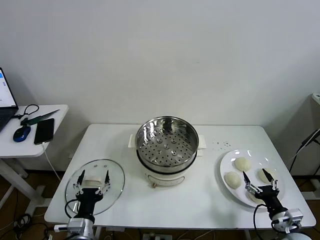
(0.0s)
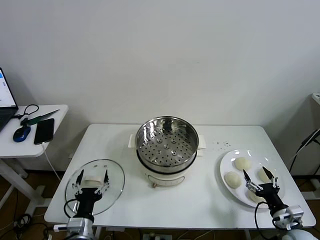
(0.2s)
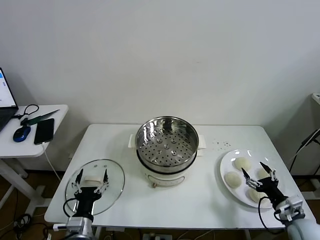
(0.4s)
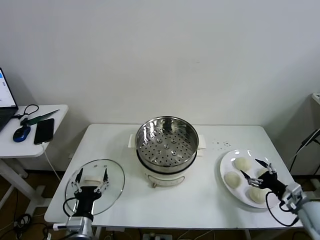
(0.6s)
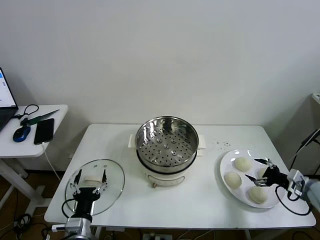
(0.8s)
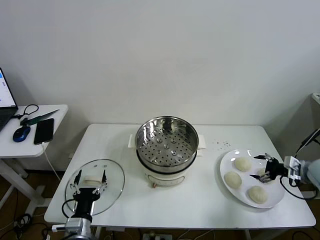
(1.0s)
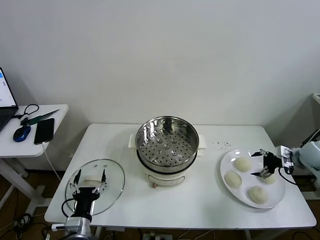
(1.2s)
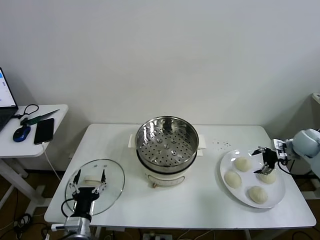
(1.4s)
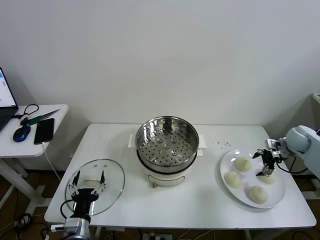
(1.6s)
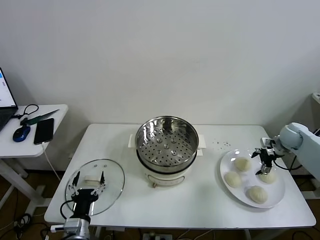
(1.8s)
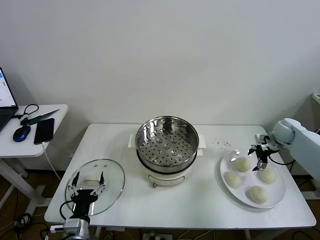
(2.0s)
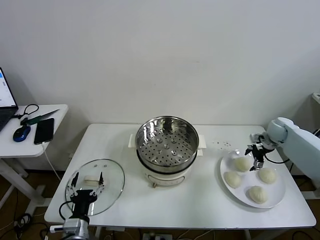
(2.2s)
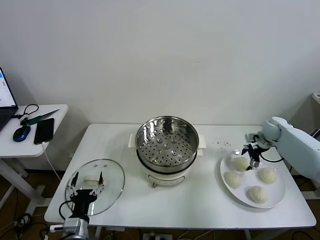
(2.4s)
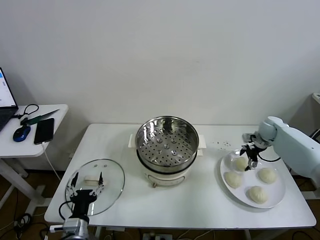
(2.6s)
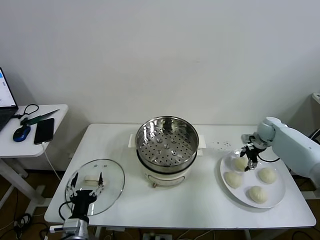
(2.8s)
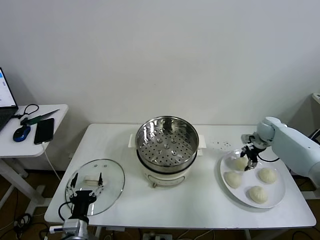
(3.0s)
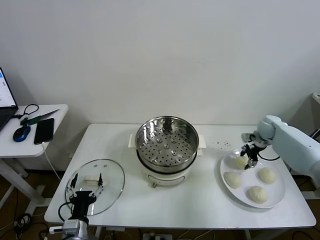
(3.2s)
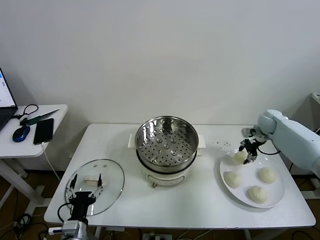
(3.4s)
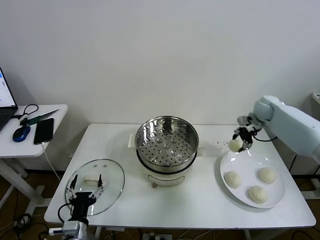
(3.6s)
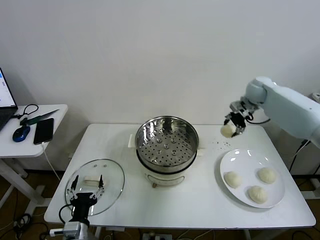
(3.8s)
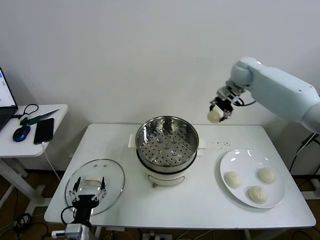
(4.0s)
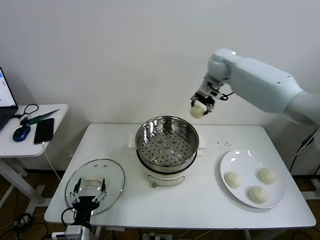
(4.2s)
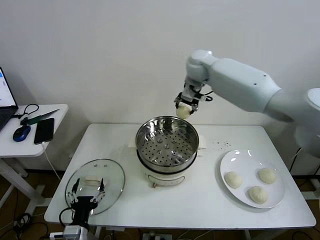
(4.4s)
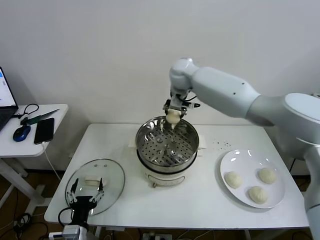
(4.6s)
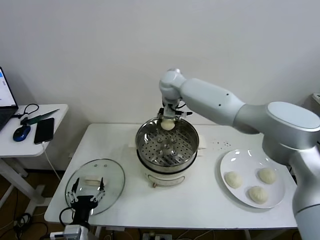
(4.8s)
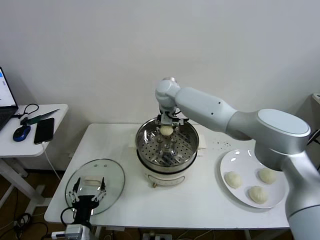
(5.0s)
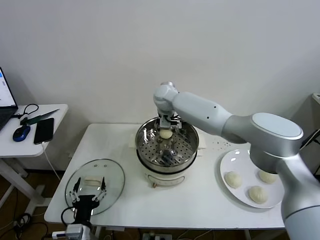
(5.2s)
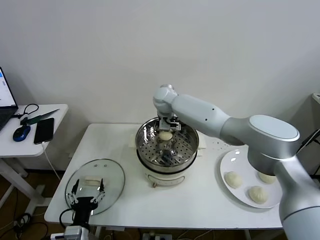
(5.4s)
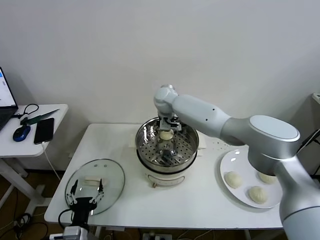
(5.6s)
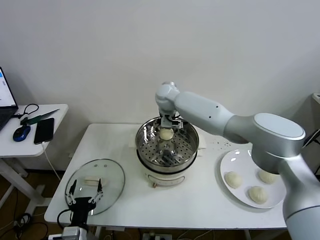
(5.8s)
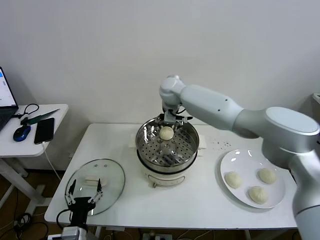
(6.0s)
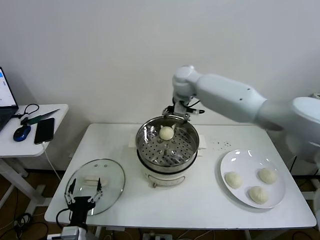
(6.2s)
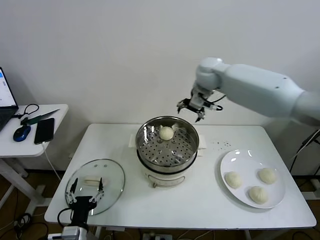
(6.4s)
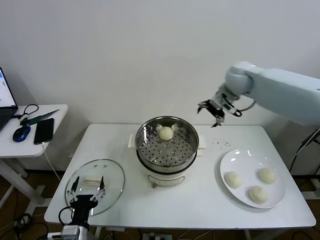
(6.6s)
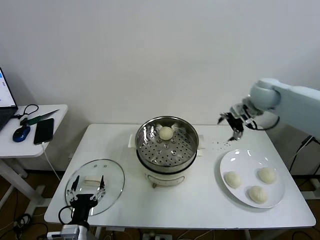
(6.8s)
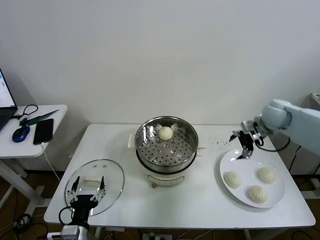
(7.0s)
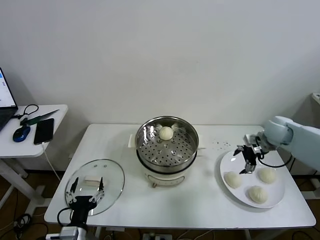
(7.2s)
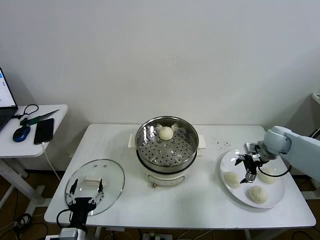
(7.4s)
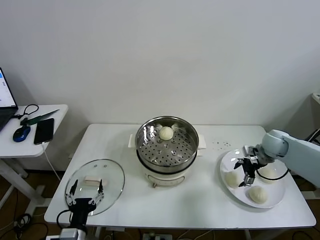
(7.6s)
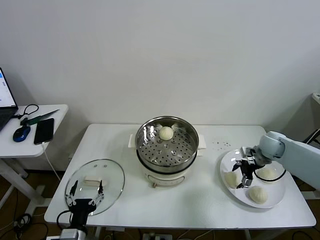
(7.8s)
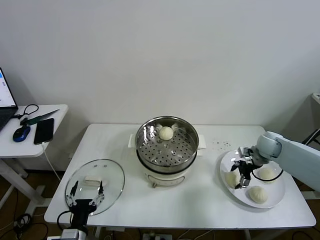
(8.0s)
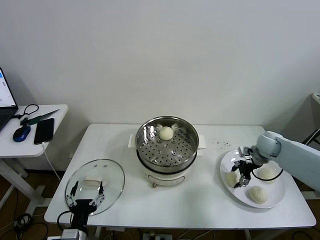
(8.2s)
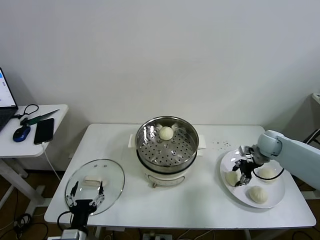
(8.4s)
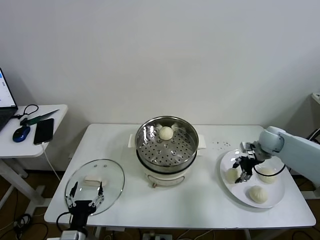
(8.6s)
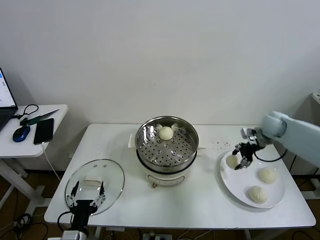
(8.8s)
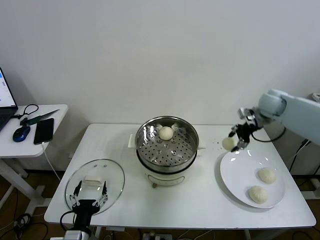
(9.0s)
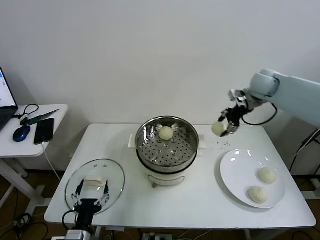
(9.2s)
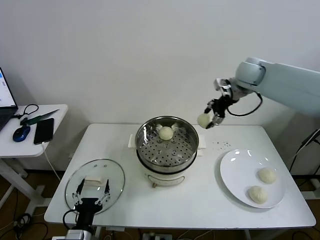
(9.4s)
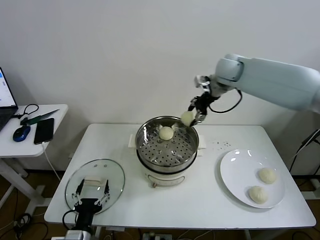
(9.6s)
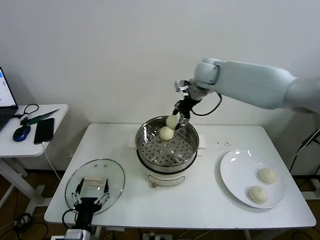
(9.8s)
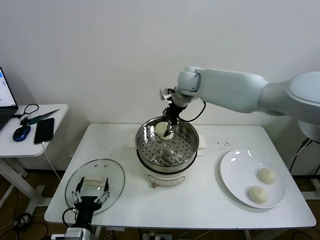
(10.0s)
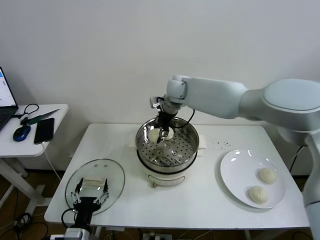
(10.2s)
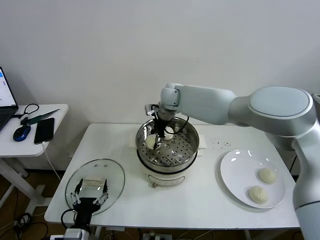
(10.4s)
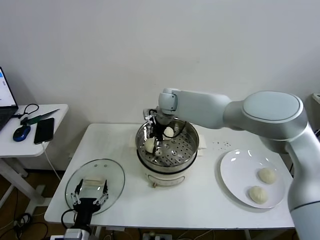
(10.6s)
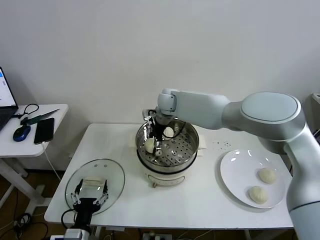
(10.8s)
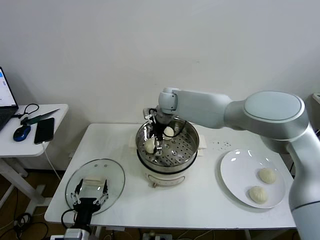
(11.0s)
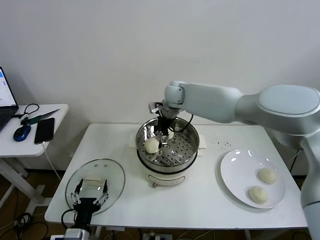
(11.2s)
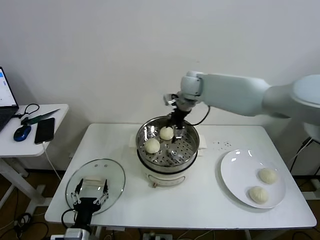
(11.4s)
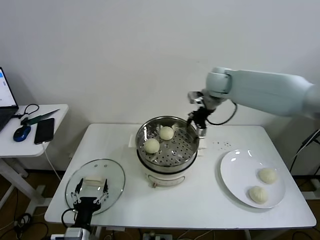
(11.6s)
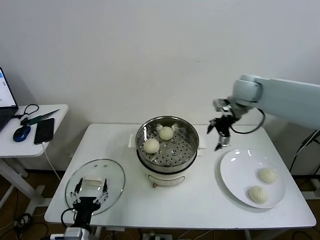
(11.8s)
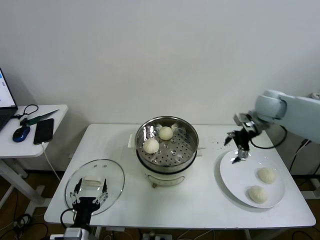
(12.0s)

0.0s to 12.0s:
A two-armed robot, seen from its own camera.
Task of the whole recording: take steamed baozi put them in steamer then cover it.
Step, 0.0s to 3.0s: Grasp the baozi in the plate with right gripper.
Step, 3.2s to 5.6s: Place the baozi on the steamer with right gripper.
Step, 5.8s to 8.2s: Grasp the baozi in the plate with right gripper.
Step, 8.6s to 11.0s: Place the baozi on the steamer with right gripper.
1.6s to 3.0s: The right gripper shifts roughly 10 cm forward and to the left, and closes.
3.0s to 4.4s: The right gripper moves to the left and upward, some 40 cm.
4.4s to 6.0s: The right gripper moves downward, approximately 5 cm, and opens its fingers.
6.0s to 7.6s: The right gripper goes roughly 40 cm to the right and downward.
7.6s to 9.0s: The right gripper goes approximately 20 cm upward and forward, and closes up.
9.0s to 10.4s: The right gripper travels to the left by roughly 35 cm.
10.4s to 12.0s: The right gripper is displaced to the right by approximately 35 cm, and opens up.

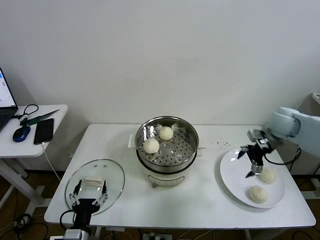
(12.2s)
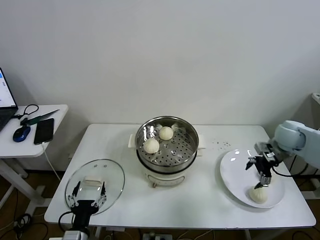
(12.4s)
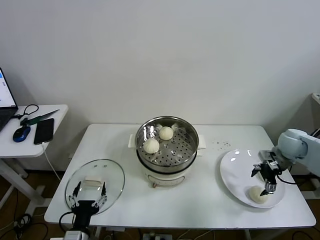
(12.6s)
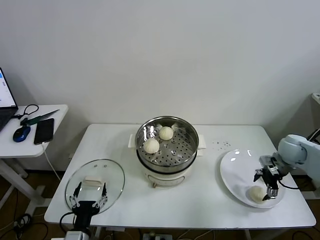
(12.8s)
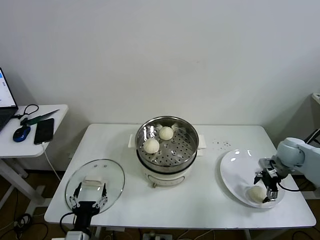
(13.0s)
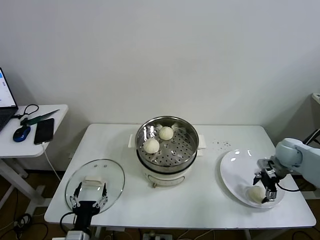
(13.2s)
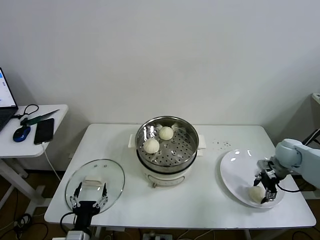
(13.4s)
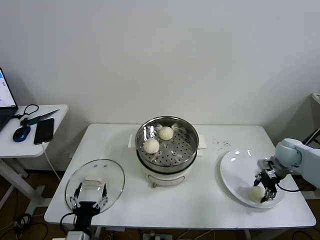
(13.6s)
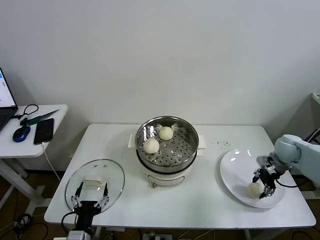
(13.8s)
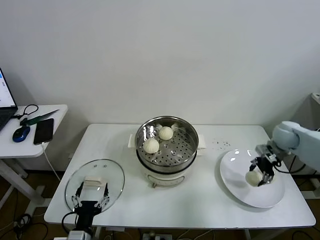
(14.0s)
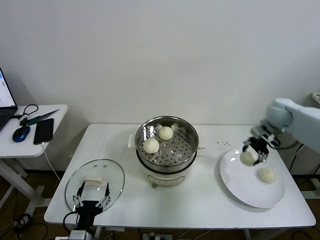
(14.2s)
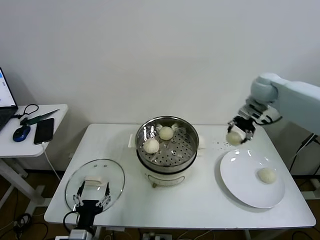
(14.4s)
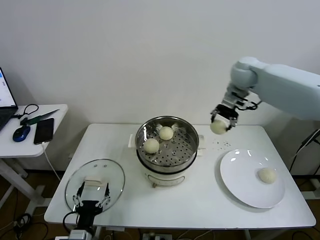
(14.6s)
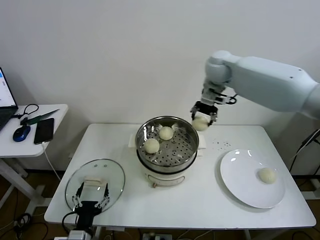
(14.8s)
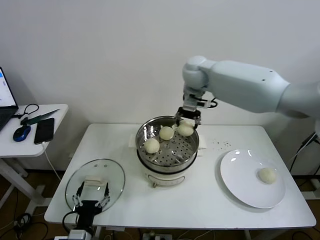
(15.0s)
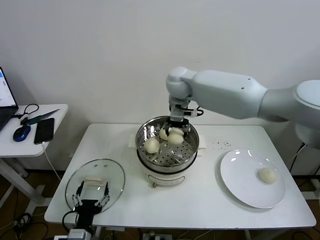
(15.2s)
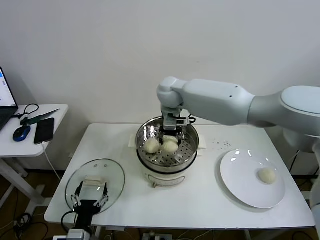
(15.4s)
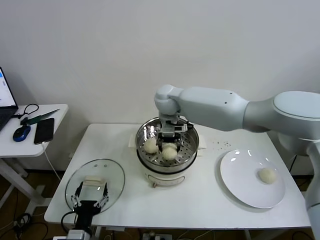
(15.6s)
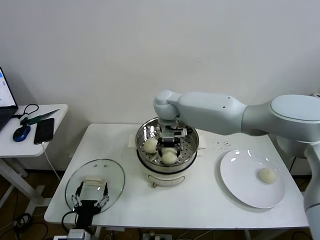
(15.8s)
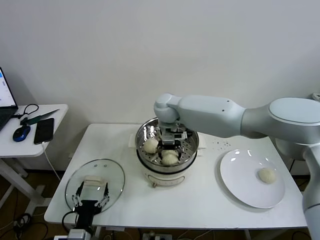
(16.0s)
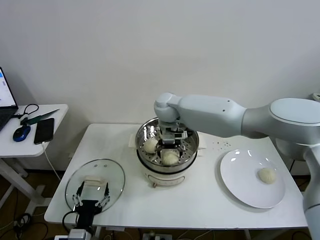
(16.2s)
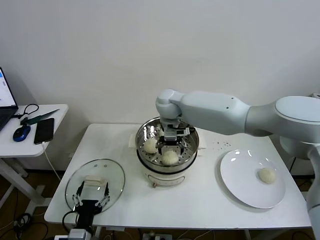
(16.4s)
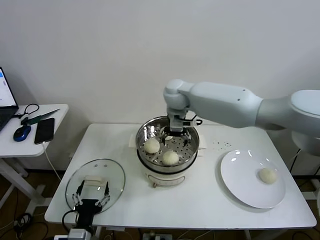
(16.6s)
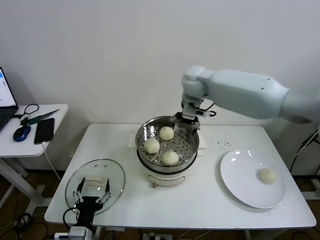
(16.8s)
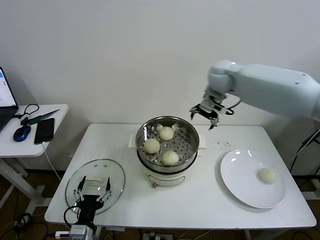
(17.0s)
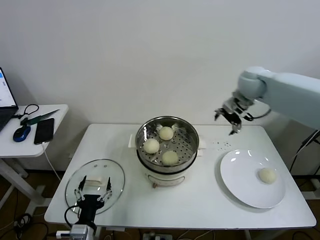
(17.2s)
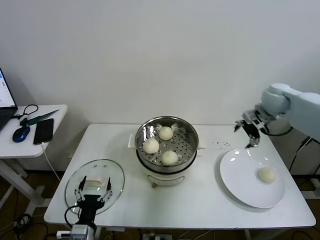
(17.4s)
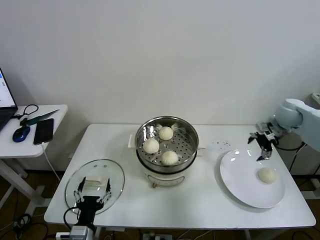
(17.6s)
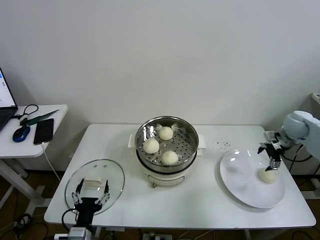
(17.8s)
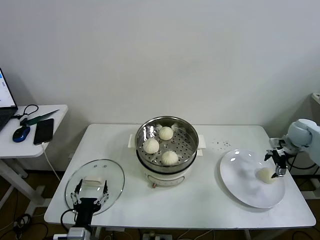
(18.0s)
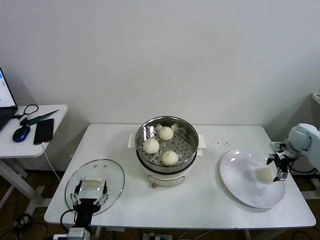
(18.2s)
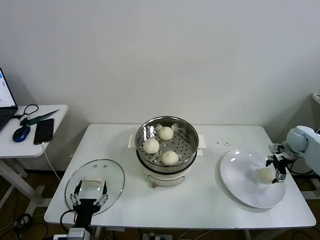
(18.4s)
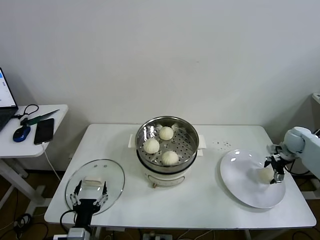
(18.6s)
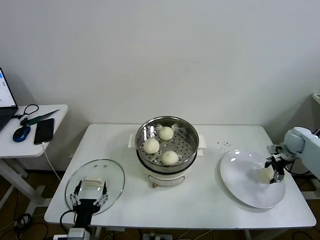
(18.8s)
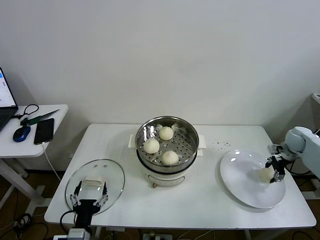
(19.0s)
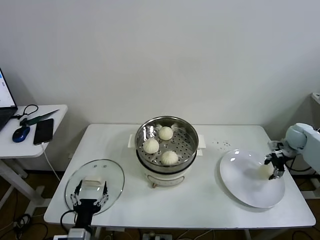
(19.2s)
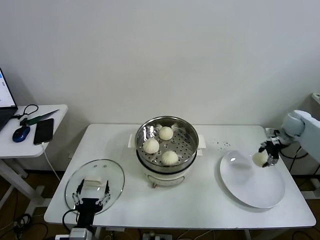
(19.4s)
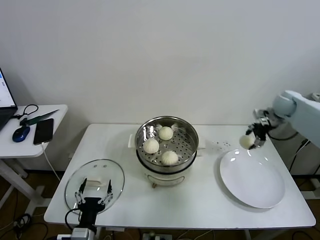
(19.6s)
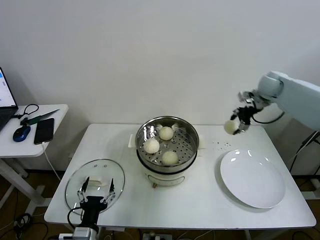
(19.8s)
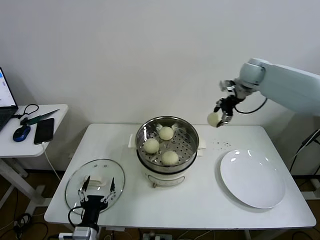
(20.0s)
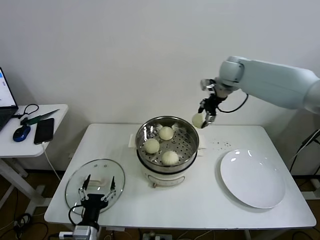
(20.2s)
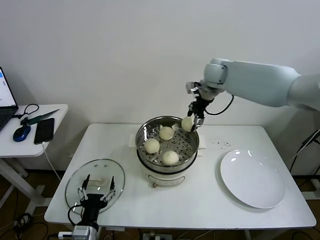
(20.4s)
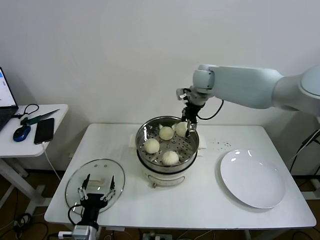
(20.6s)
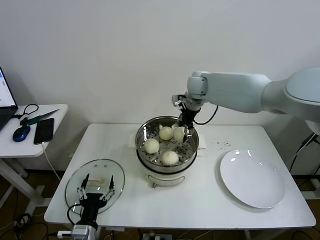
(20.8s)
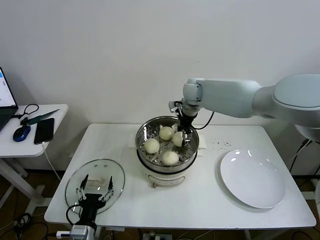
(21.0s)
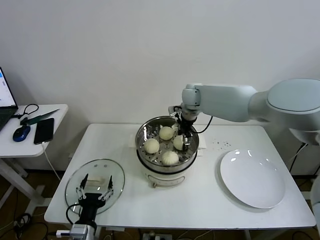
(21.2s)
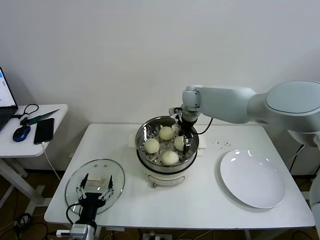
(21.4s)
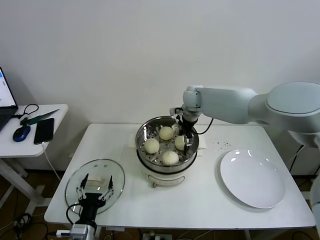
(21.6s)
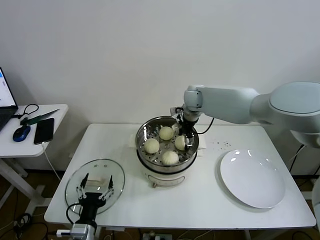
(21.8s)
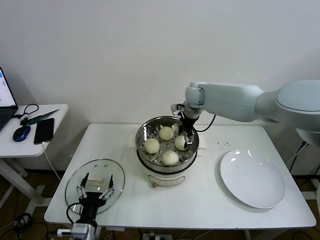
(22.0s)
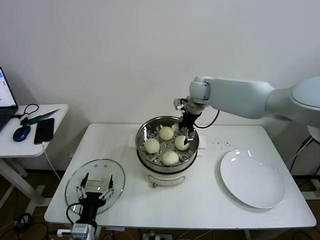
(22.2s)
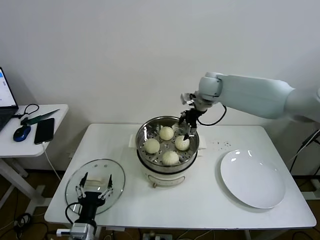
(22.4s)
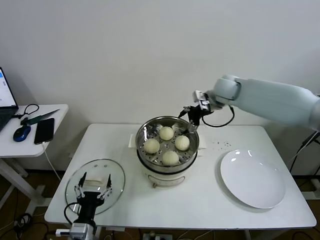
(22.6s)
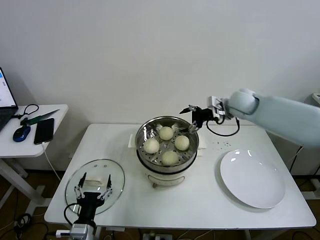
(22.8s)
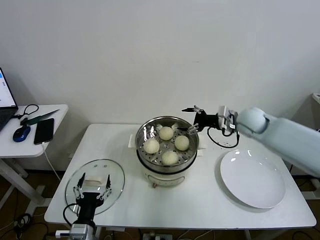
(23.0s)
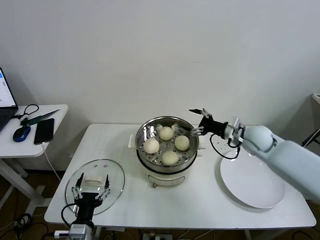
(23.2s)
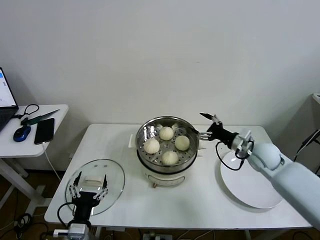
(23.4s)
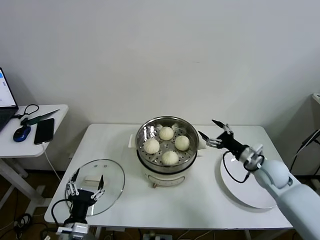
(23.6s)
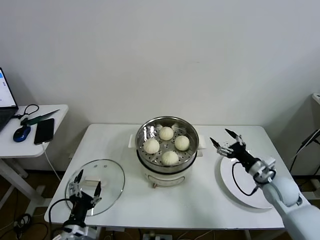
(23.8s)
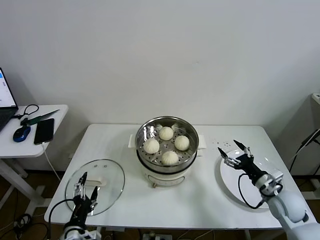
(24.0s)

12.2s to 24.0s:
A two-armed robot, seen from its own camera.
Task of the whole recording: take steamed baozi put them in steamer then cover it.
Step, 12.2s to 13.6s: Grasp the baozi in the plate with right gripper.
Step, 13.8s to 16.0s: Place the baozi on the steamer with right gripper.
Step, 16.2s to 18.8s: Grasp the baozi in the plate with right gripper.
Step, 19.0s to 21.8s: Place the baozi on the steamer with right gripper.
12.2s to 13.6s: The right gripper moves downward, some 10 cm, and closes up.
13.6s to 15.2s: The right gripper travels to the left and upward by roughly 50 cm.
15.2s to 16.6s: The right gripper moves roughly 10 cm downward and comes back, and opens up.
16.6s to 18.2s: The right gripper moves to the right, some 50 cm.
18.2s to 19.6s: The right gripper goes about 15 cm upward, forward and to the left, and closes up.
19.6s to 21.0s: The right gripper moves to the left, approximately 35 cm.
21.0s to 22.6s: The right gripper heads to the right, covering roughly 10 cm, and opens.
22.6s to 24.0s: The right gripper goes roughly 40 cm backward, downward and to the right.
